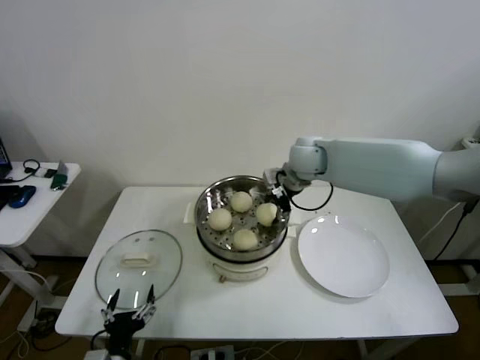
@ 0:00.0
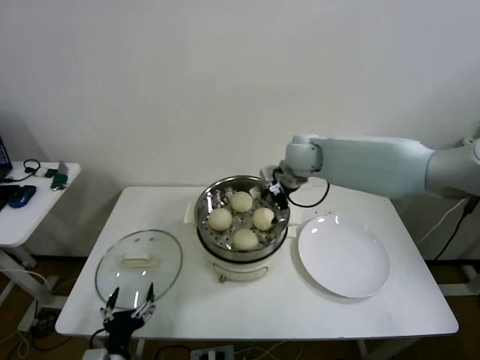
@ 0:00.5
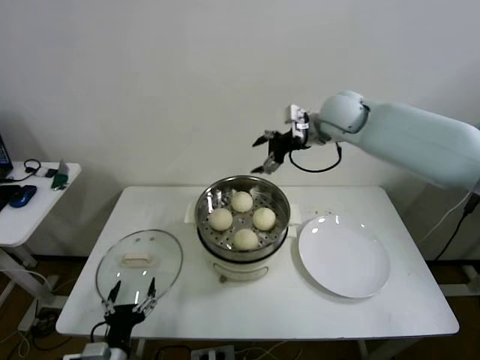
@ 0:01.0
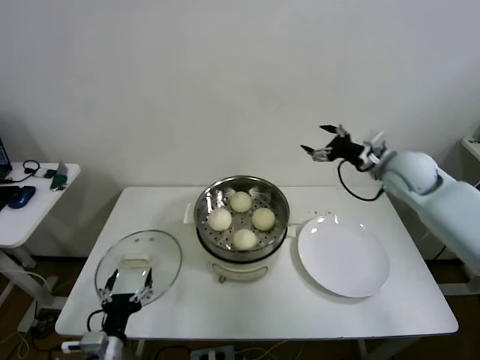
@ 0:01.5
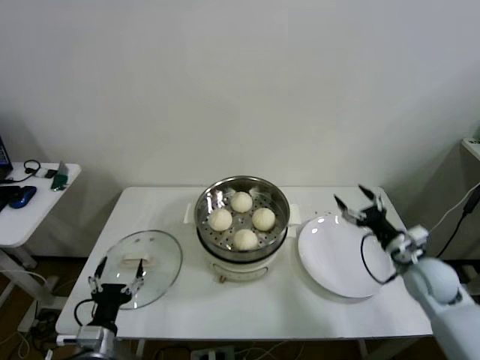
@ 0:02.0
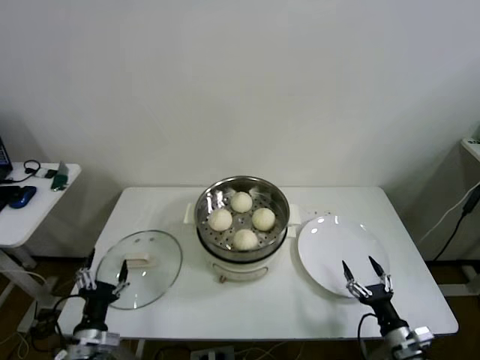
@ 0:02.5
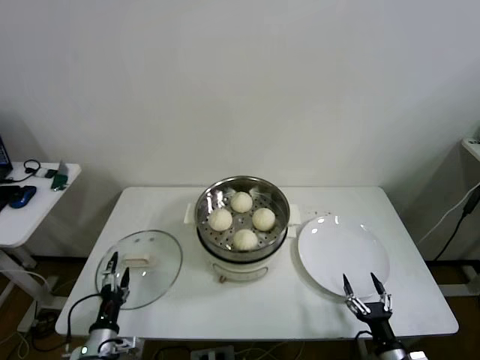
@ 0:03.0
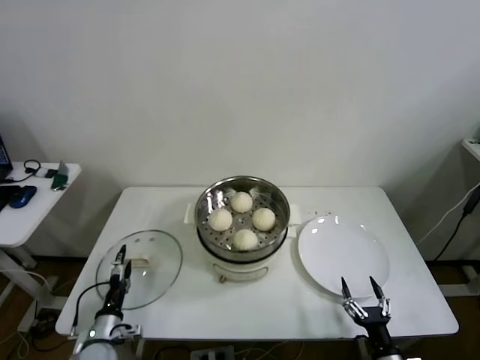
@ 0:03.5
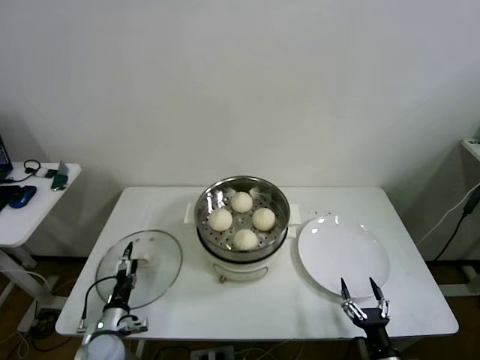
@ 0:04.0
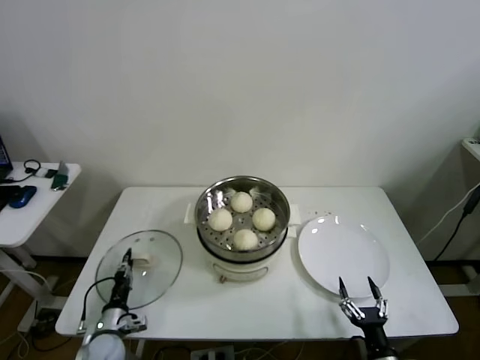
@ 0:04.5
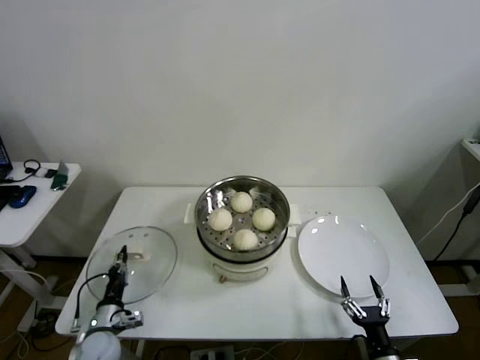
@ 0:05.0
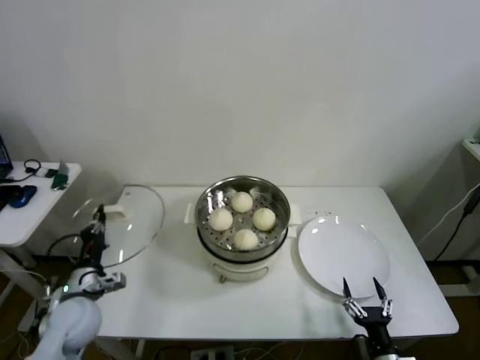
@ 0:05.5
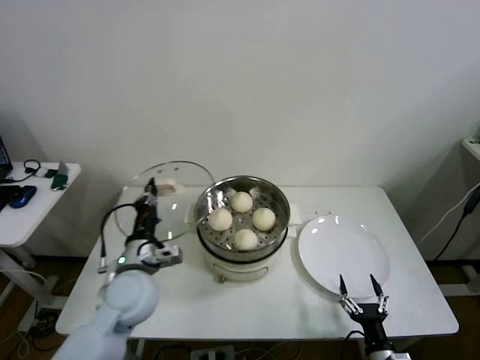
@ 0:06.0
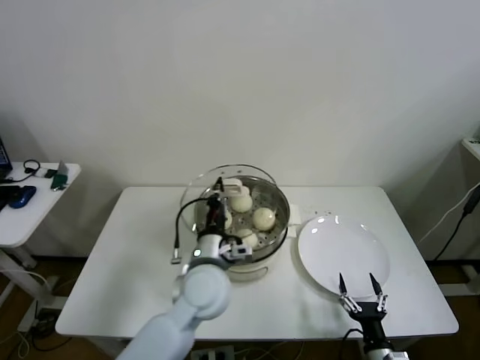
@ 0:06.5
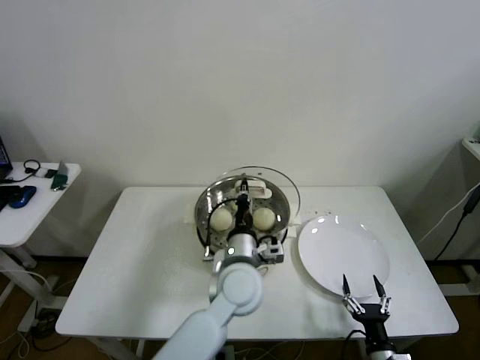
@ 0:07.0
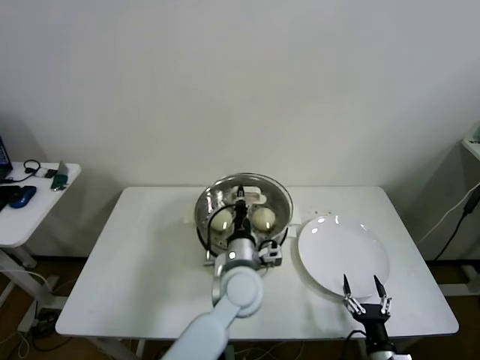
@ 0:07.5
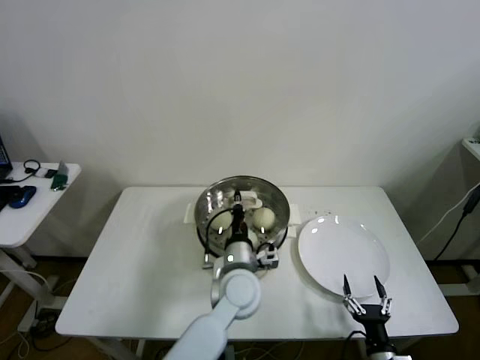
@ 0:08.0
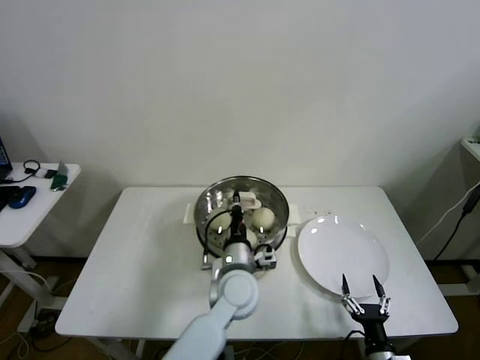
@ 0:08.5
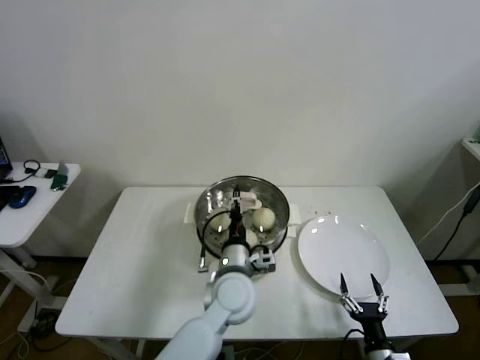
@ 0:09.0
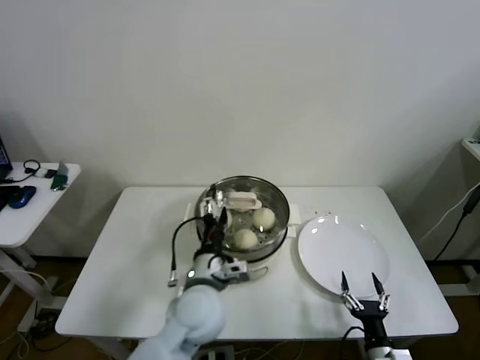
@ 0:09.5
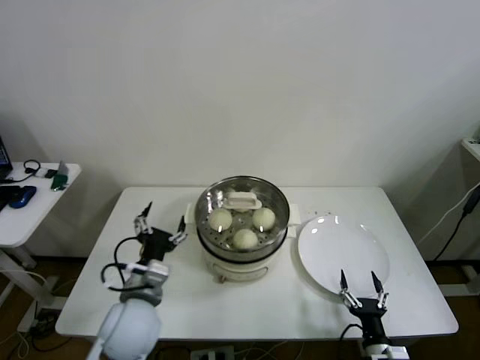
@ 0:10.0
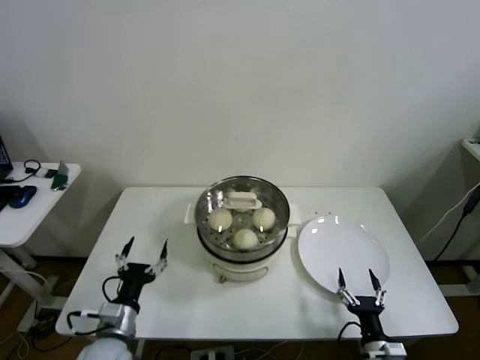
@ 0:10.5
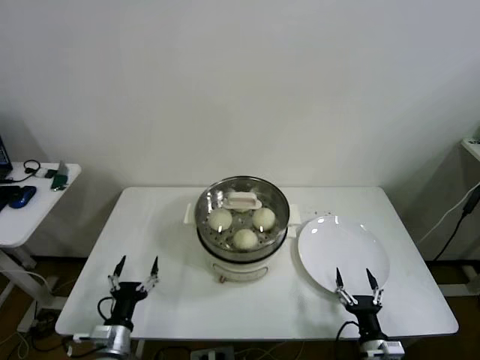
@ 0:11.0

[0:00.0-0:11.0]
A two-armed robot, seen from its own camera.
Step, 0:00.5 to 0:04.5: Grasp the pot lid with left gripper.
Step, 0:05.0 to 0:08.5: Place the pot lid on the steamer with left gripper.
0:00.0 to 0:02.0: The left gripper moves roughly 5 cm; the right gripper shifts approximately 35 cm to the right, backward and downward, and opens.
0:02.0 to 0:03.5: The left gripper goes approximately 10 cm downward and forward. The right gripper travels backward and downward by some 25 cm.
0:03.5 to 0:05.5: The left gripper moves upward, approximately 15 cm, and closes up.
0:05.5 to 0:07.5: The left gripper heads to the right, covering about 35 cm.
0:07.5 to 0:09.0: The left gripper opens its fingers.
0:09.0 to 0:11.0: The left gripper heads to the left, backward and downward, covering approximately 35 cm, and opens its fingers.
